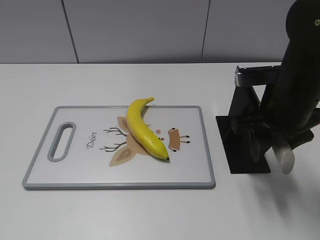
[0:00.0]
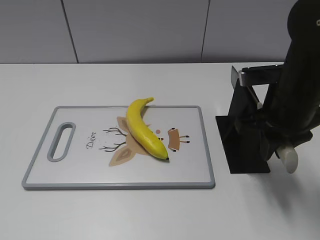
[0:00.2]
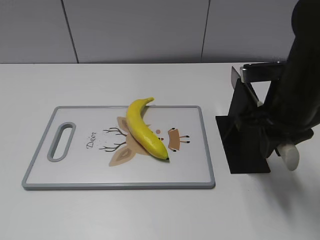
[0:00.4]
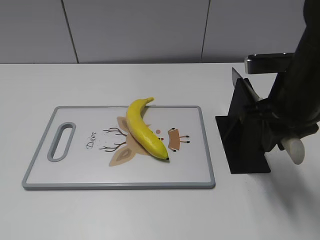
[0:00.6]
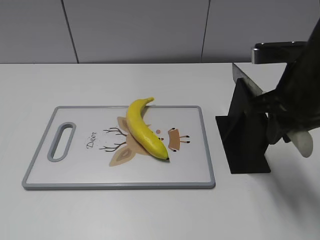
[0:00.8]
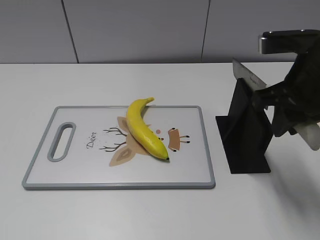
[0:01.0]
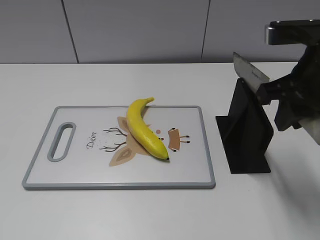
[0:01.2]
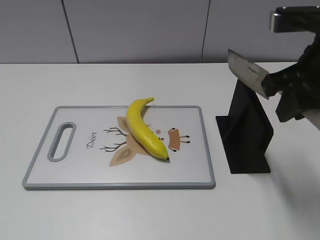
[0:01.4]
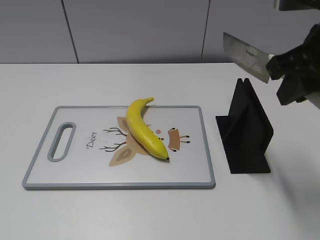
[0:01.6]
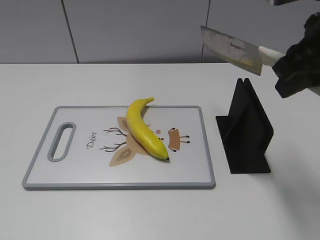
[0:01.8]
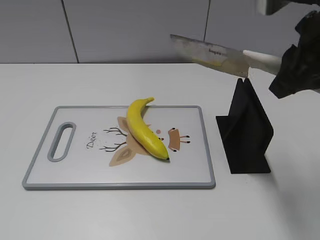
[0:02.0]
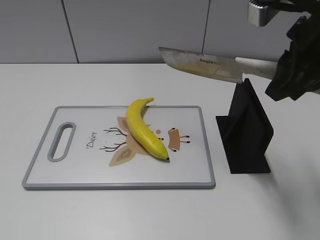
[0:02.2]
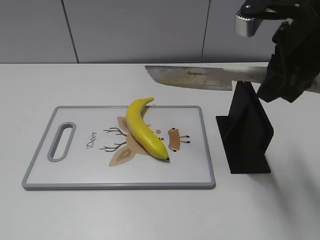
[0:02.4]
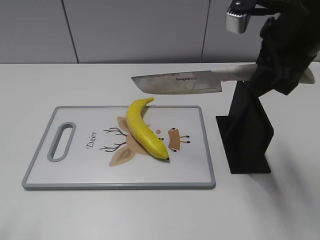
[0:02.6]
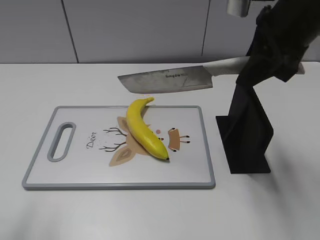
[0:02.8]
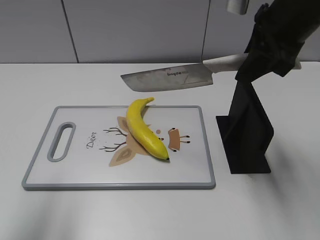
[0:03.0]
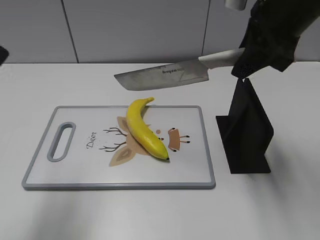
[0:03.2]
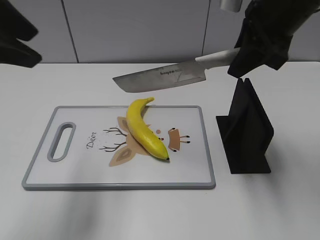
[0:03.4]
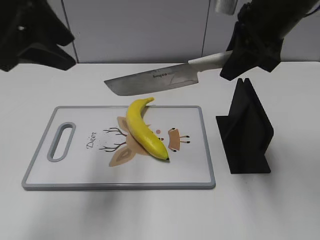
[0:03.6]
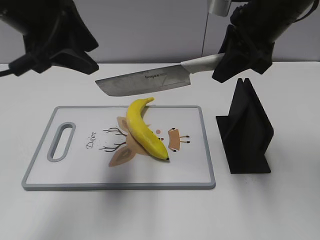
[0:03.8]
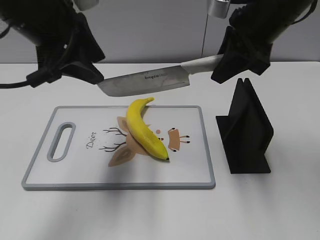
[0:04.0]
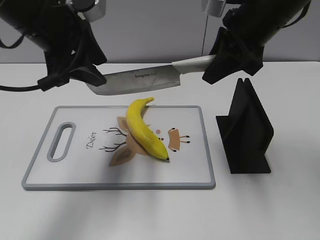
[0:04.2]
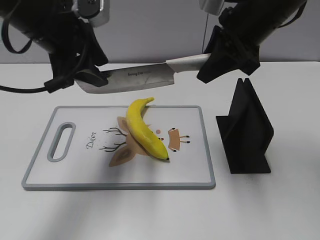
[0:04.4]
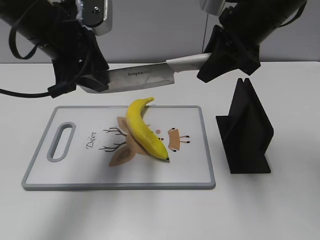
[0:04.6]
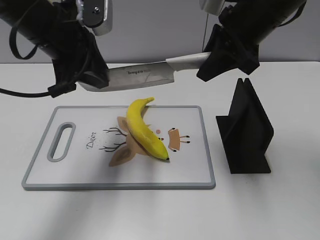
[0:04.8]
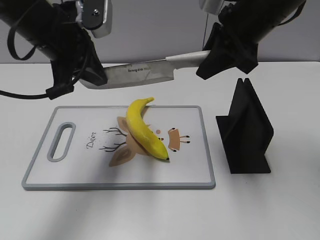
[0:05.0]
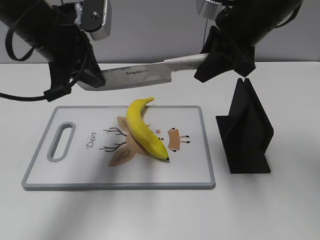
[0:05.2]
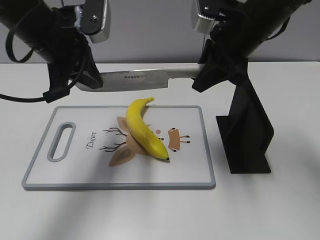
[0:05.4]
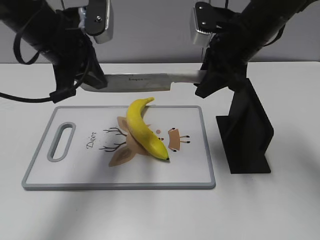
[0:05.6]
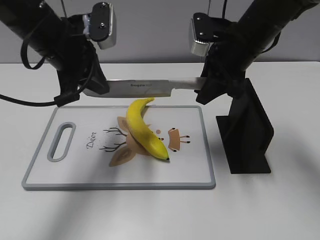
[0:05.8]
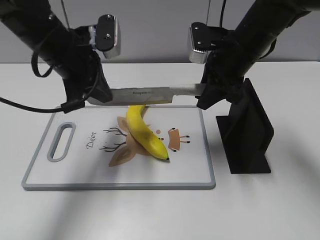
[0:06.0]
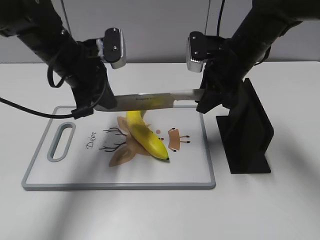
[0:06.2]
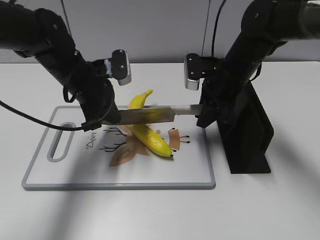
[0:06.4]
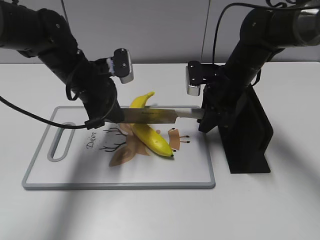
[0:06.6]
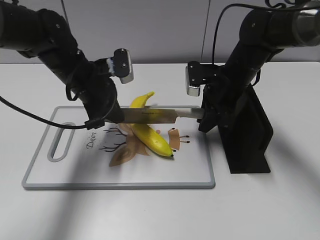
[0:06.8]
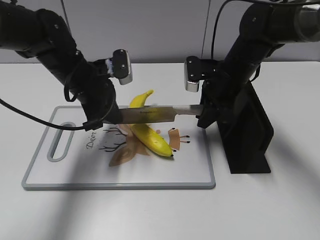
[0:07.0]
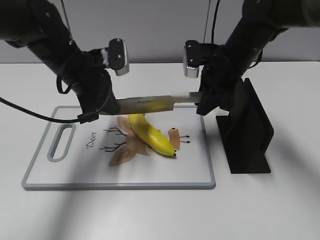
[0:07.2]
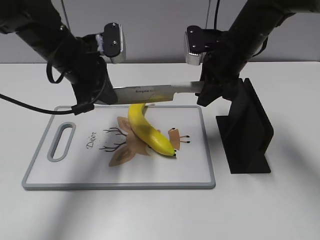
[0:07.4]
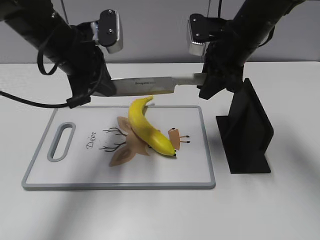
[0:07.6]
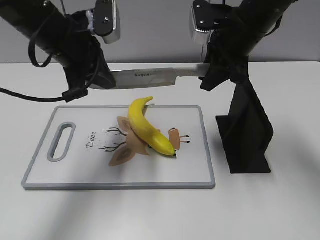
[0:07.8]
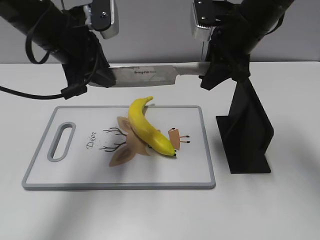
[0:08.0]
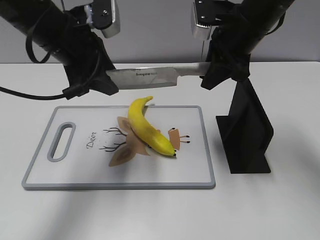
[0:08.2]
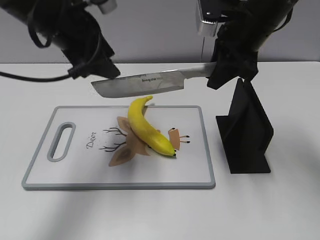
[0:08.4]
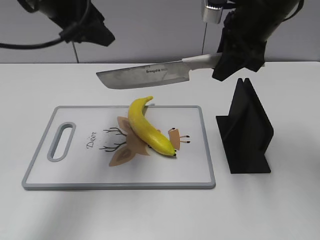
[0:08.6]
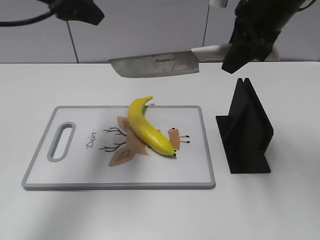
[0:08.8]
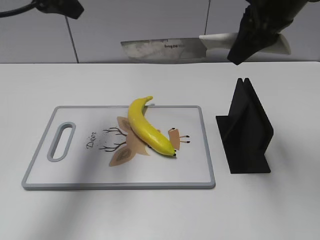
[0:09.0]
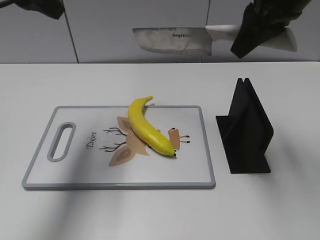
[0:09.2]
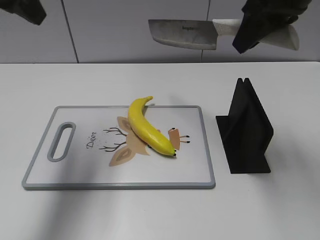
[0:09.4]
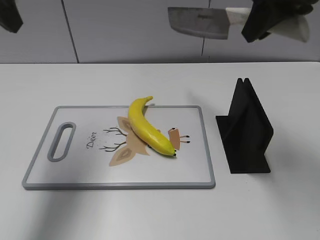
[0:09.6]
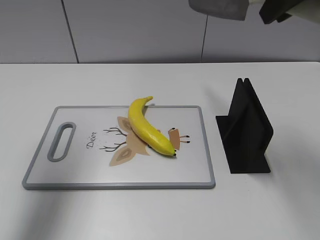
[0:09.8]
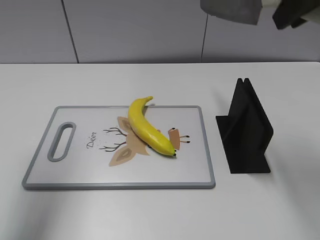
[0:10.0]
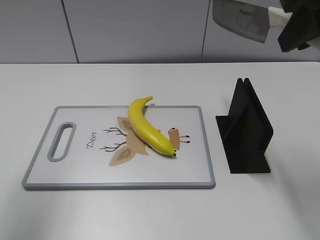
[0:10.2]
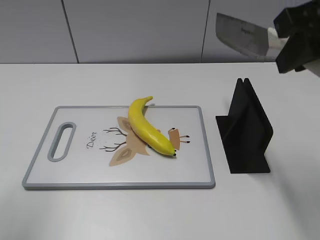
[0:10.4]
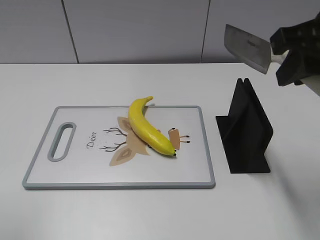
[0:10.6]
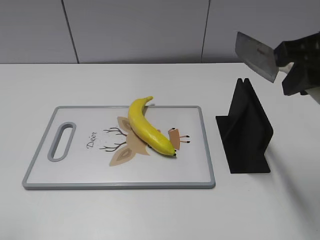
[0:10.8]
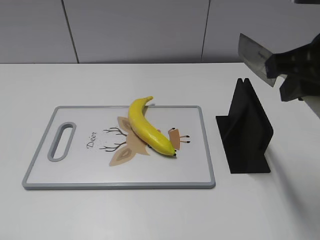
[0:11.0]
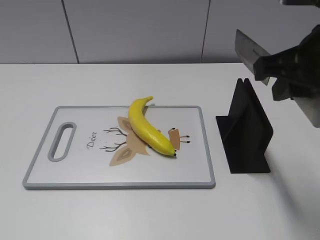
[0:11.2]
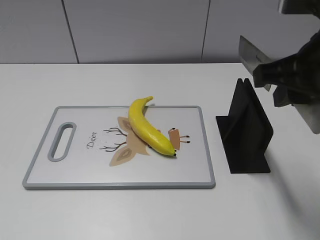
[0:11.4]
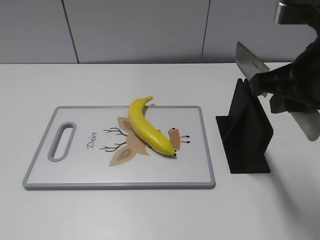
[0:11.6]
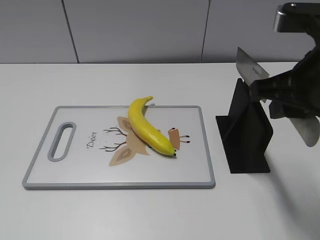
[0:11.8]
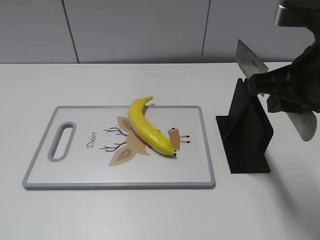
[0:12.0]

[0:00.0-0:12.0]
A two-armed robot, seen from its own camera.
Task of the whole recording: cut plastic banana.
Step, 0:01.8 to 0:07.6: Lift the knife with your right hand.
Step, 0:07.8 to 0:10.0: Cut the banana with your right hand.
Step, 0:10.2 to 0:11.2: Secure the blade with your left hand.
0:00.0 to 0:01.6: The right gripper goes approximately 10 cm upward, and closes.
0:01.6 to 0:03.0: The right gripper moves forward, approximately 5 cm. Meanwhile the left gripper is displaced forward and upward by approximately 20 cm.
0:03.0 to 0:04.4: The left gripper moves forward, to the right and downward, roughly 20 cm.
0:04.4 to 0:06.0: The grippers both shift downward by about 5 cm. The left gripper closes its fingers.
0:06.0 to 0:07.6: The right gripper travels downward and back again, about 10 cm each way, while the left gripper travels downward and back again, roughly 5 cm each way.
0:07.6 to 0:09.0: Both grippers move upward, roughly 10 cm. The left gripper opens.
0:09.0 to 0:10.4: The right gripper shifts roughly 10 cm backward. Meanwhile the left gripper goes approximately 20 cm backward and to the left.
0:10.4 to 0:12.0: The left gripper shifts roughly 20 cm backward and downward. The right gripper travels downward by about 5 cm.

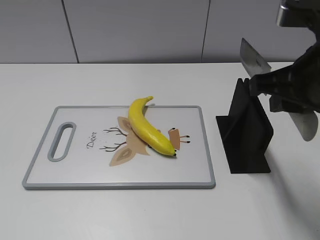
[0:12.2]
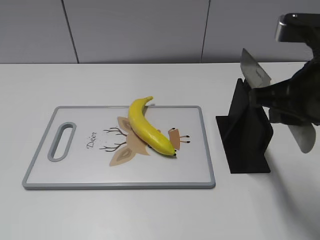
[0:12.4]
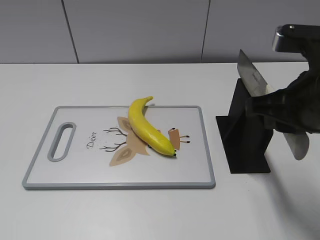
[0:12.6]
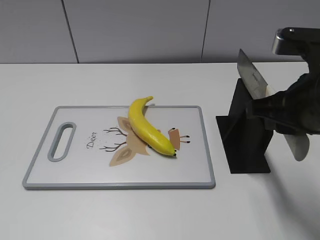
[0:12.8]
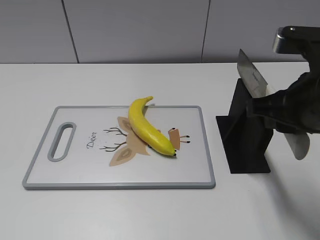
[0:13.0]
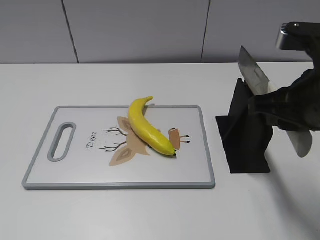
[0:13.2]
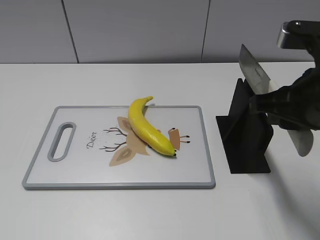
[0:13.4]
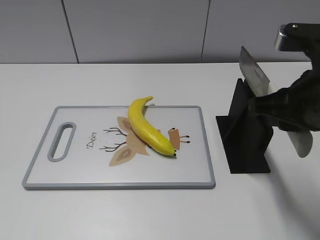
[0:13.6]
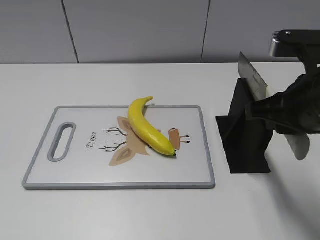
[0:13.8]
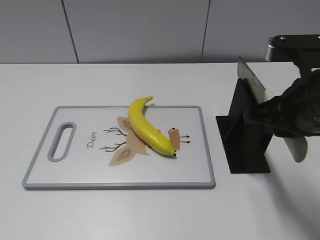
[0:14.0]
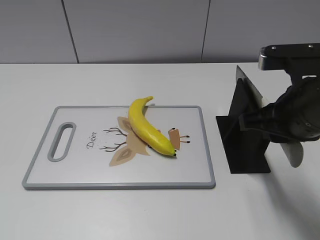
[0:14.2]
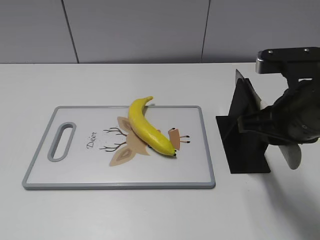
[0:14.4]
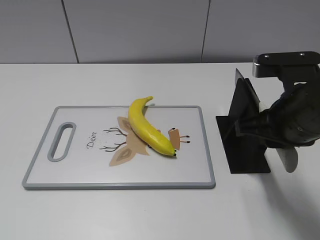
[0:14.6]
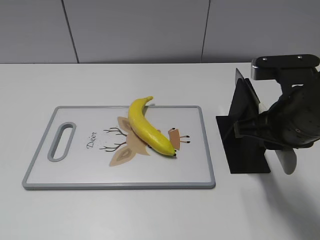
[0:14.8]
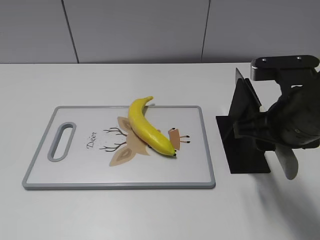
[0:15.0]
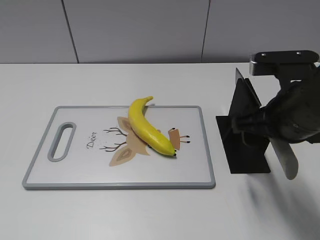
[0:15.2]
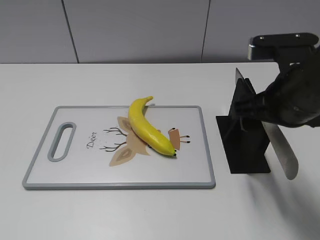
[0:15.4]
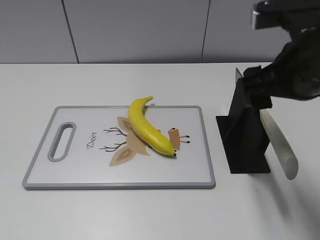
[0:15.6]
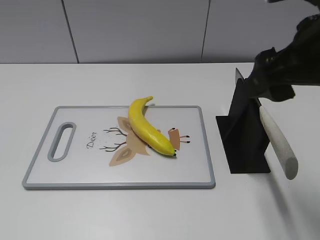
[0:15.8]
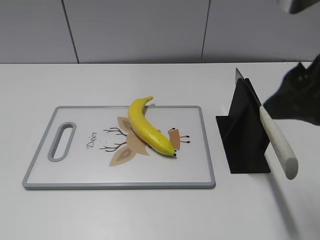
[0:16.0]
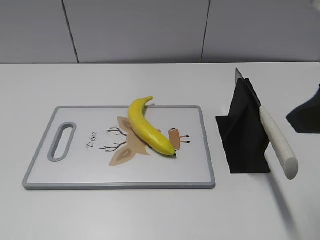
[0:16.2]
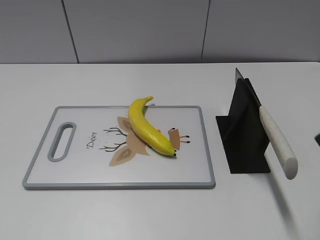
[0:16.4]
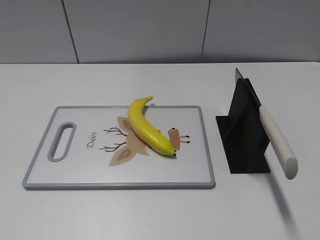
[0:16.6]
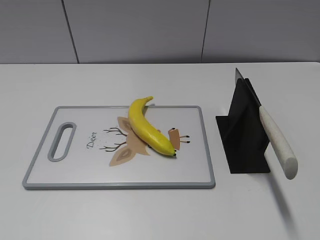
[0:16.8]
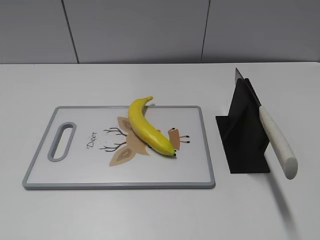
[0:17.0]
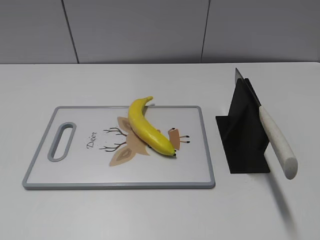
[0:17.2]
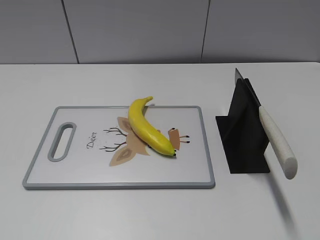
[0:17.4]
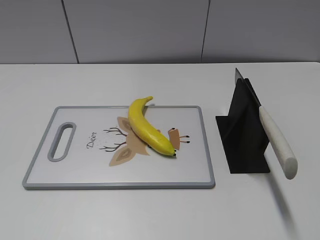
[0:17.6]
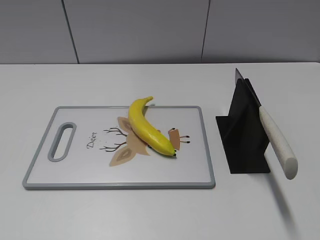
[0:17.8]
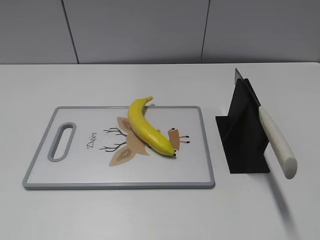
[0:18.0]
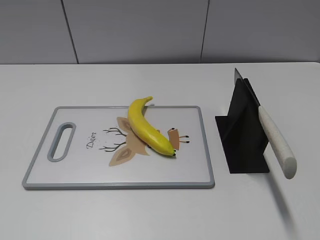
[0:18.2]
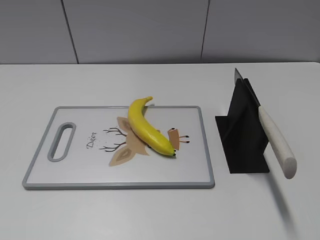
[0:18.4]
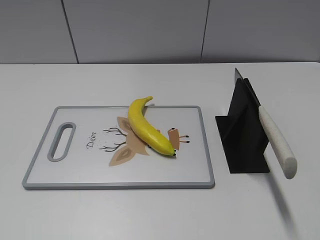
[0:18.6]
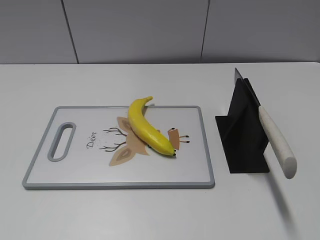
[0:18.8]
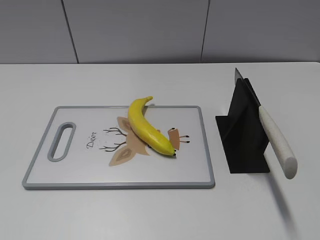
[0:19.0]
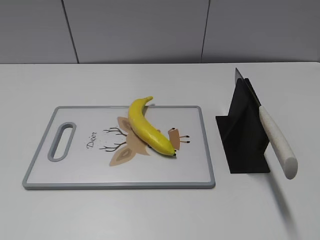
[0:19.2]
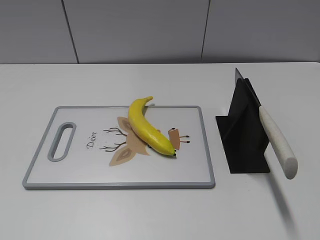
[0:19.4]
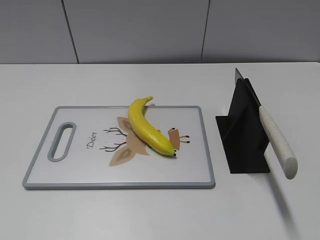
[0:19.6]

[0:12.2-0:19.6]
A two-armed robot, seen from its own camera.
Task of the whole recording: cut plastic banana.
Step, 0:12.2 to 0:19.6: Place the knife on the storage rack with your right hand.
0:12.2 to 0:13.6: The grippers stay close to where they were, moving slightly.
0:13.6 to 0:15.2: The right gripper opens its fingers.
0:15.2 to 0:16.6: The right gripper travels backward, upward and to the right by approximately 20 cm.
0:16.6 to 0:18.2: The right gripper heads backward and to the right, covering approximately 10 cm.
